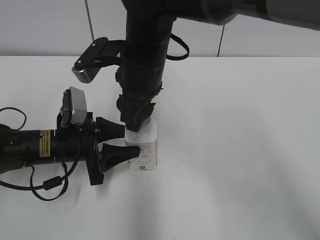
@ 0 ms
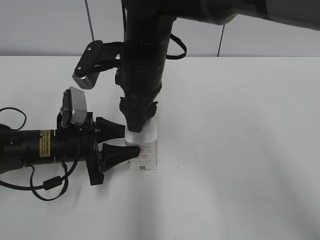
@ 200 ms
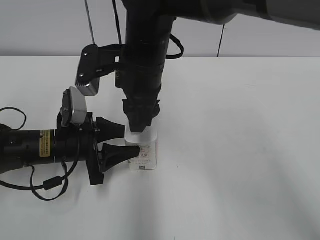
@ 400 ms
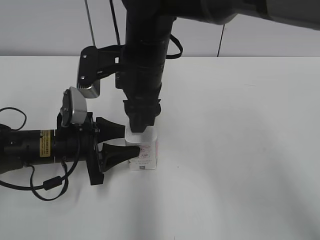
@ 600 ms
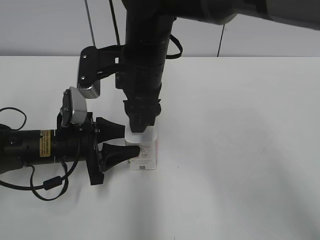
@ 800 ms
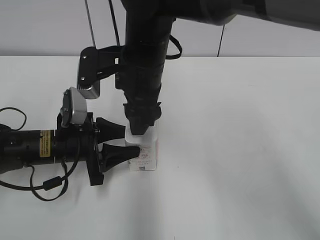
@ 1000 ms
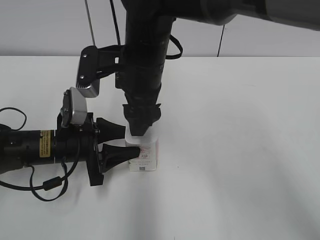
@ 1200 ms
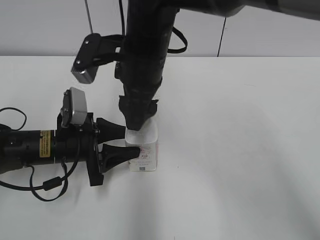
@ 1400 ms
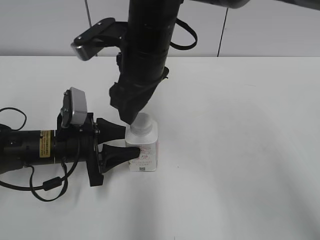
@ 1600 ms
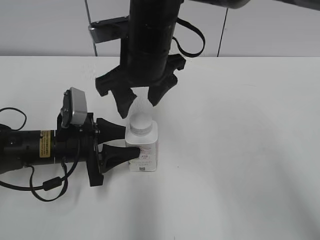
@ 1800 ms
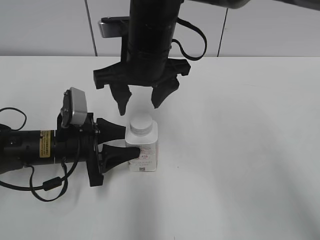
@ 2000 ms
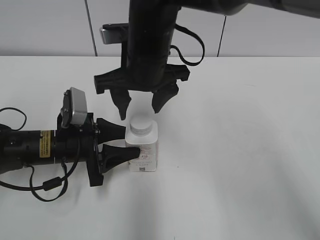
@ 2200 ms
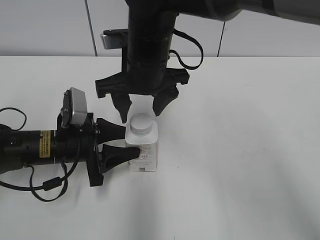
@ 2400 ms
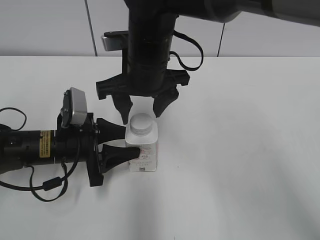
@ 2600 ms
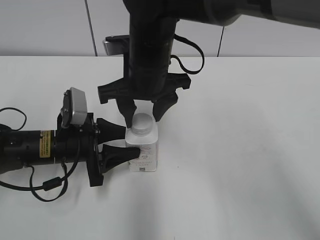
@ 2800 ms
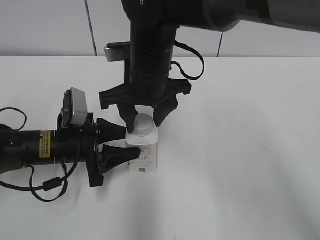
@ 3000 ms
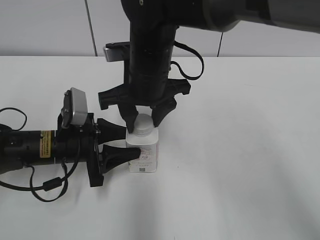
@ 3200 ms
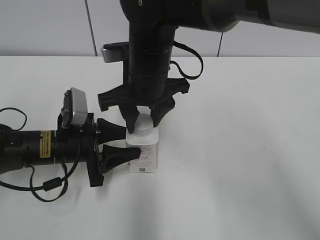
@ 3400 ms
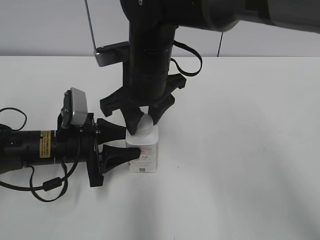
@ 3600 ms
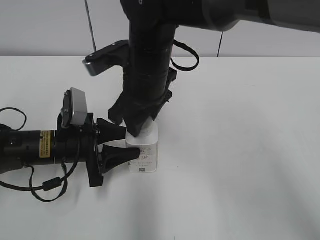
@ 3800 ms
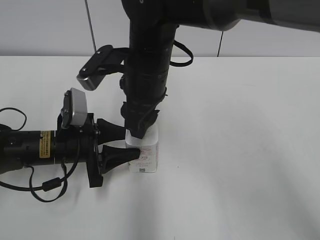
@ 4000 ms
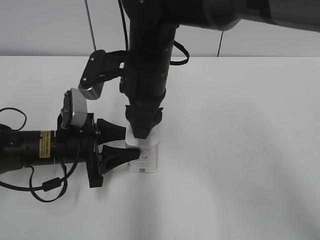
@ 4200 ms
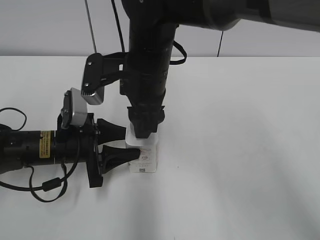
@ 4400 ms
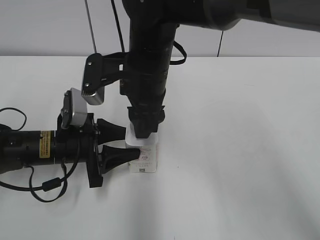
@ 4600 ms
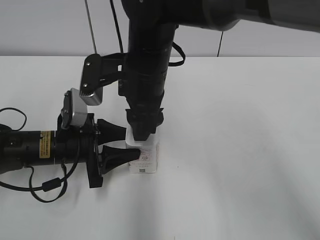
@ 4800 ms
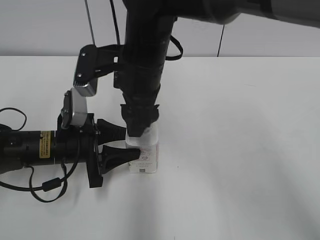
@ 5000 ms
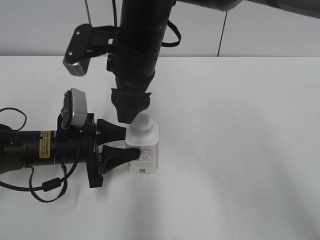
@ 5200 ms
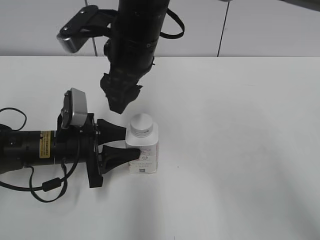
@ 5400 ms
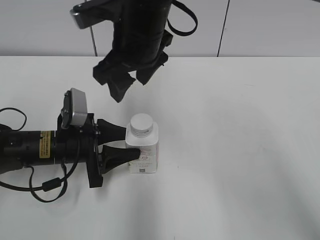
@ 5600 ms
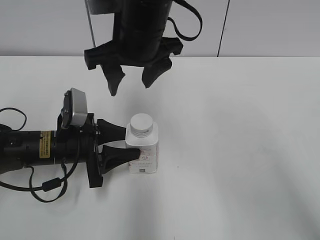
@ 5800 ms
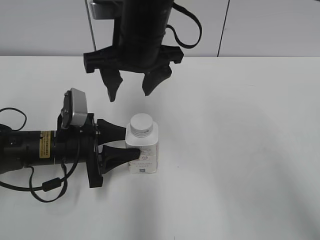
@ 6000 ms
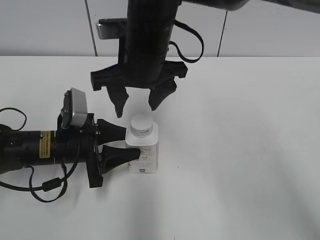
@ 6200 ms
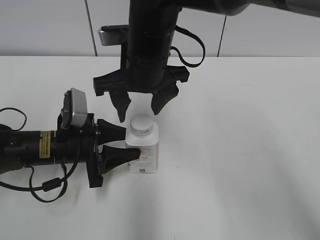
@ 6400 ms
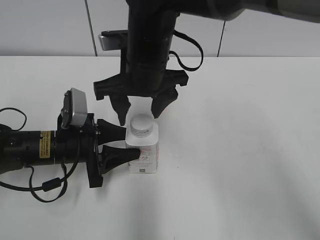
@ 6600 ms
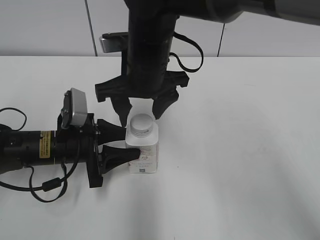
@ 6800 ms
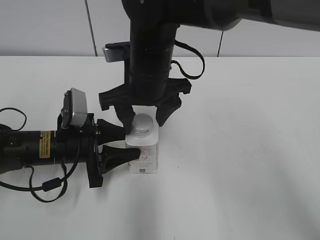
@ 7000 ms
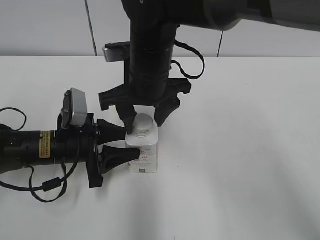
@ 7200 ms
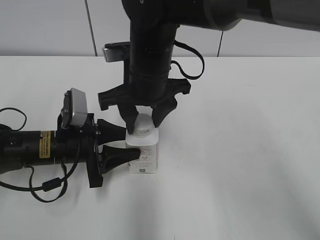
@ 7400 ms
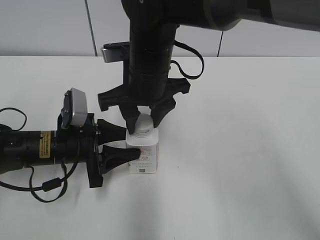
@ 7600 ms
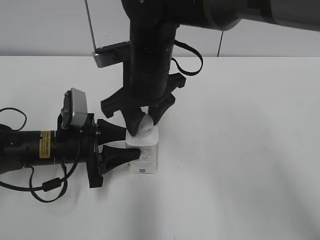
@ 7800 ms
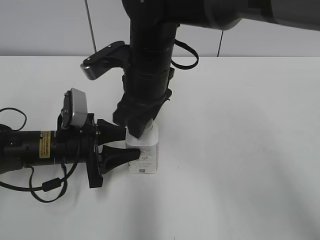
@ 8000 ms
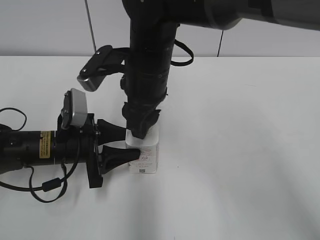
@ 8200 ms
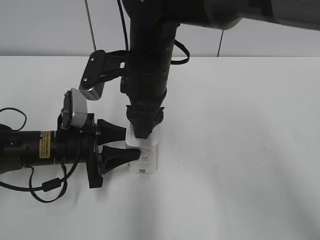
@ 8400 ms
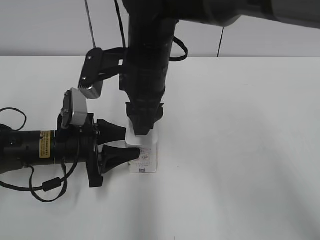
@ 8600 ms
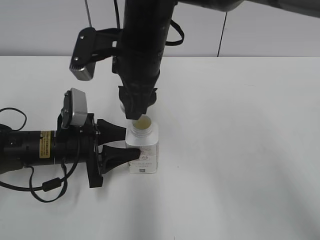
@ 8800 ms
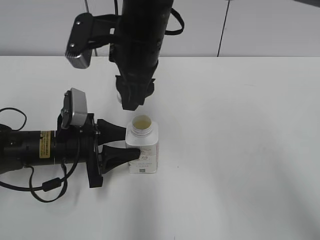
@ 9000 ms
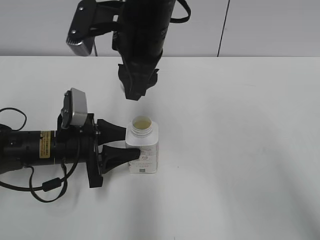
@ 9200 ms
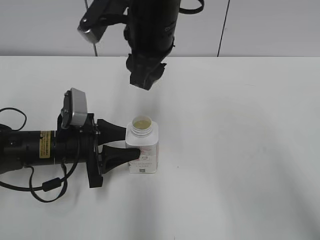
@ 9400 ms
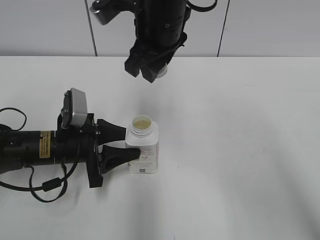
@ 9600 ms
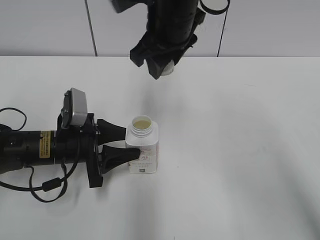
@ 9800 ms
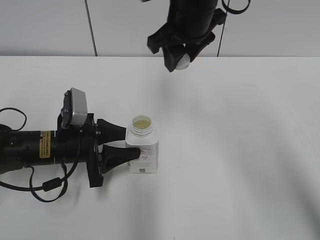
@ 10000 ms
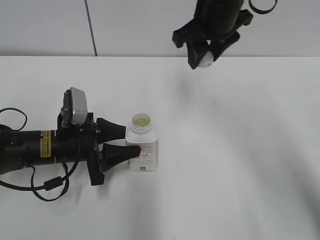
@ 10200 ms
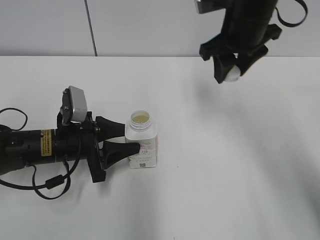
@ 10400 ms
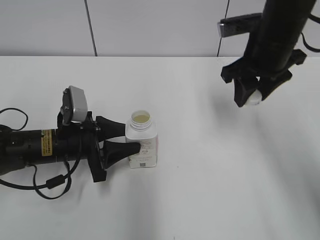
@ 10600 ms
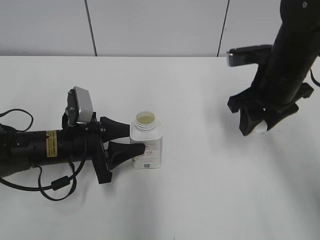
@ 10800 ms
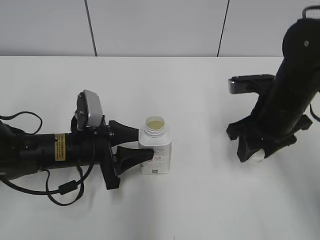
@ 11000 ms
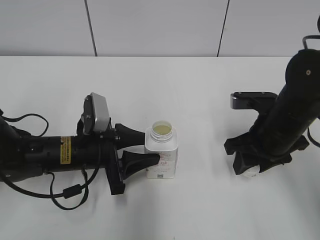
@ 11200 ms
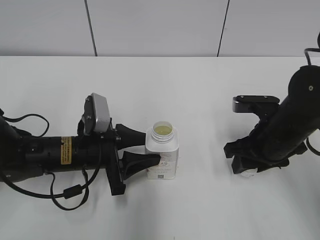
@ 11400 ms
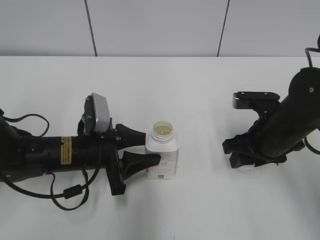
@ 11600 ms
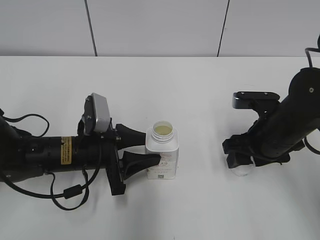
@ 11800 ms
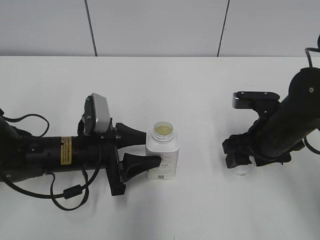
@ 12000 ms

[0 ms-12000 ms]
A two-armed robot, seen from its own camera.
Step, 0 ms to 8600 ms: Unscrew the bottle cap with the right gripper while holding the bottle with the left gripper.
Step, 9000 ms to 11600 ms: Place the bottle cap on the table with the right gripper.
0 ms to 1600 ms: The right gripper opens.
1600 ms to 3000 ms: The right gripper closes its fingers.
4400 ms to 6000 ms: The right gripper opens.
6000 ms to 7600 ms: The right gripper closes its fingers.
9000 ms to 10400 ms: The right gripper shifts about 15 cm to the right.
10400 ms to 12000 ms: The right gripper shifts about 20 cm downward, backward and to the right, and opens its fingers.

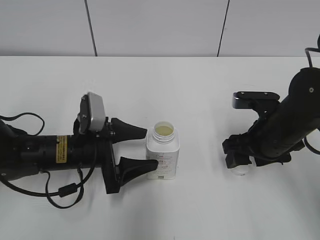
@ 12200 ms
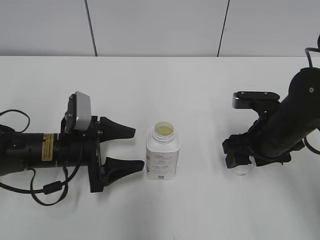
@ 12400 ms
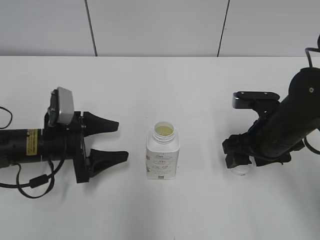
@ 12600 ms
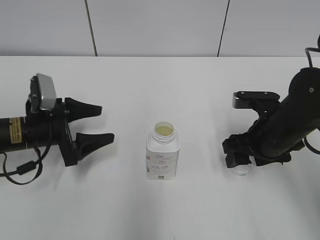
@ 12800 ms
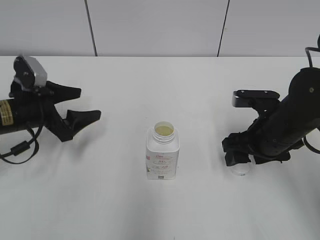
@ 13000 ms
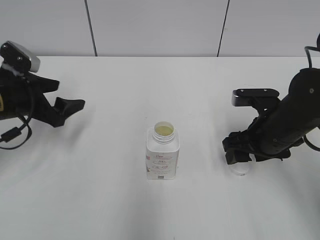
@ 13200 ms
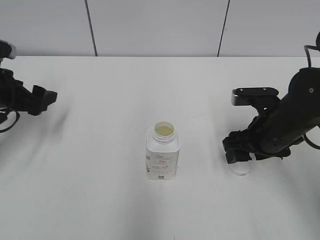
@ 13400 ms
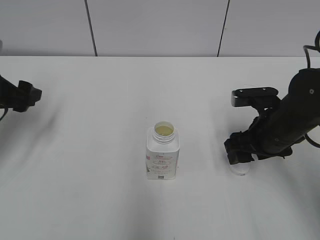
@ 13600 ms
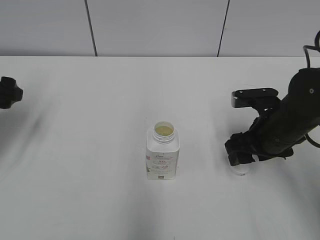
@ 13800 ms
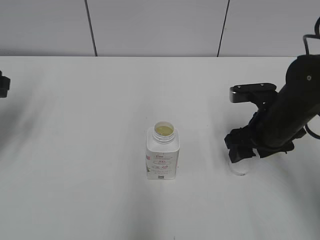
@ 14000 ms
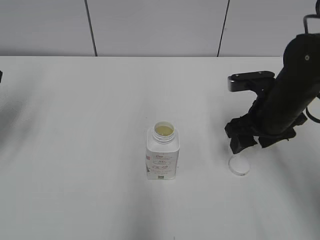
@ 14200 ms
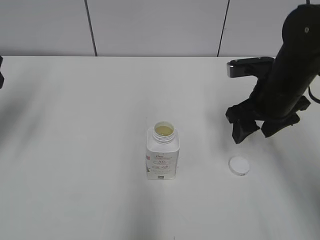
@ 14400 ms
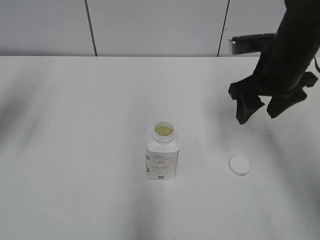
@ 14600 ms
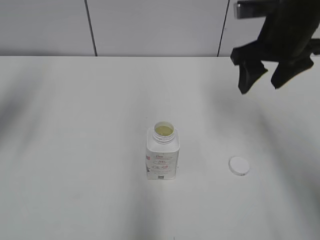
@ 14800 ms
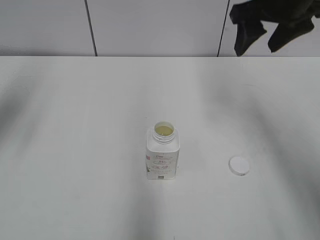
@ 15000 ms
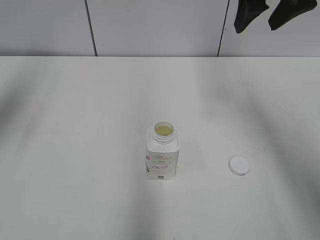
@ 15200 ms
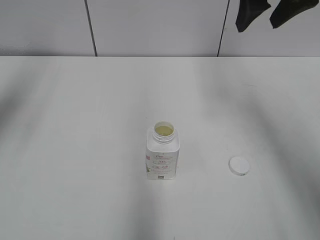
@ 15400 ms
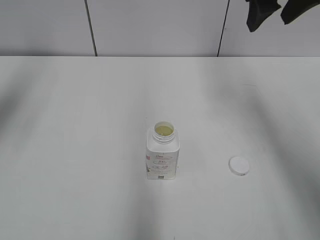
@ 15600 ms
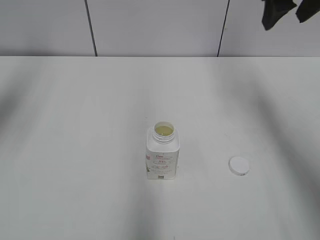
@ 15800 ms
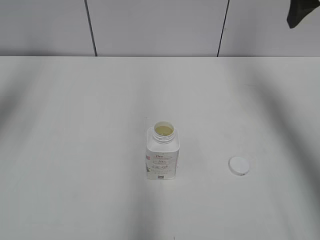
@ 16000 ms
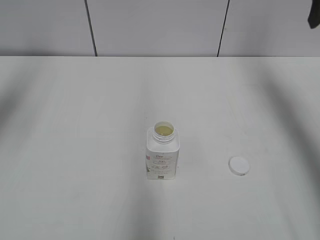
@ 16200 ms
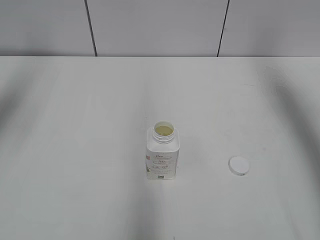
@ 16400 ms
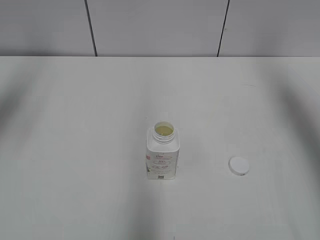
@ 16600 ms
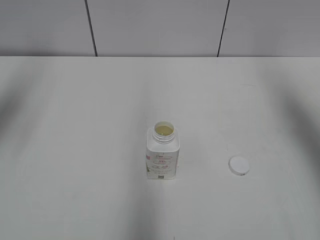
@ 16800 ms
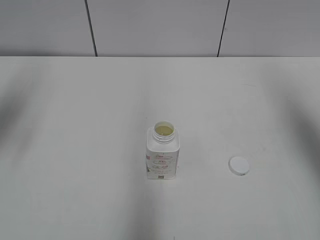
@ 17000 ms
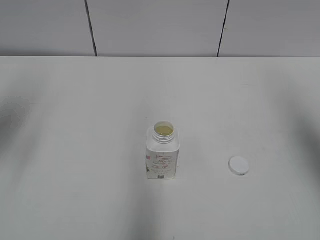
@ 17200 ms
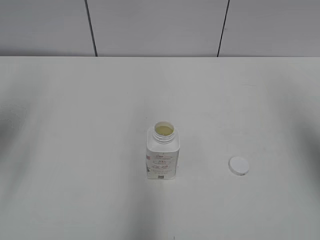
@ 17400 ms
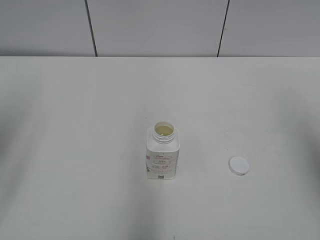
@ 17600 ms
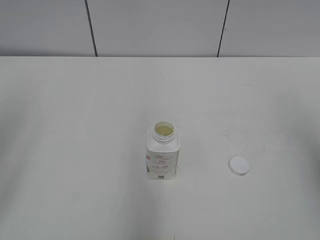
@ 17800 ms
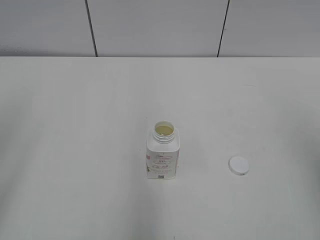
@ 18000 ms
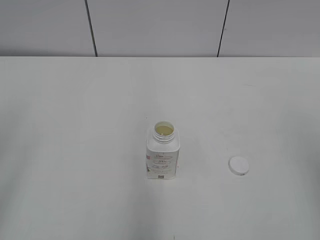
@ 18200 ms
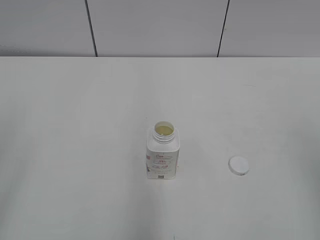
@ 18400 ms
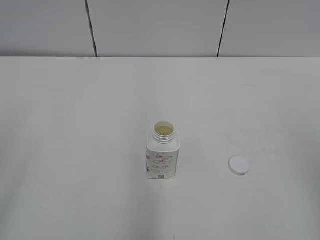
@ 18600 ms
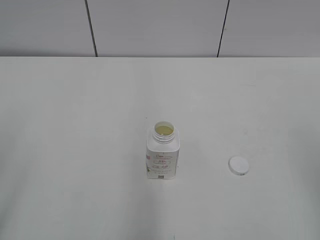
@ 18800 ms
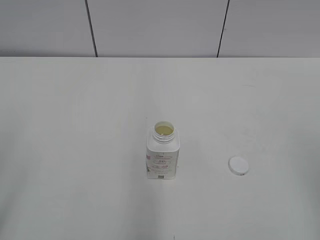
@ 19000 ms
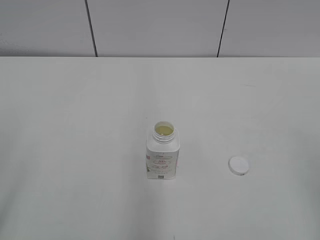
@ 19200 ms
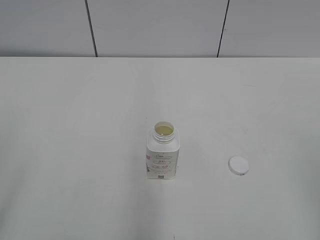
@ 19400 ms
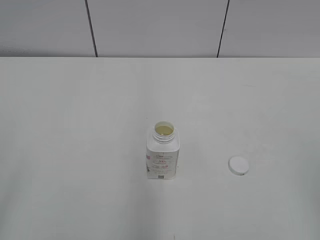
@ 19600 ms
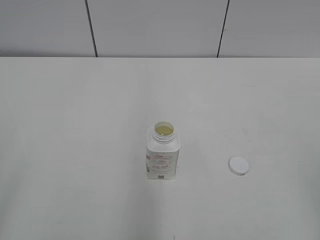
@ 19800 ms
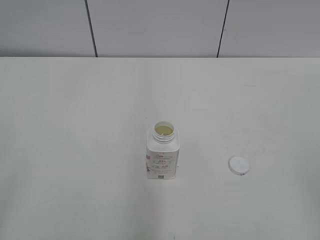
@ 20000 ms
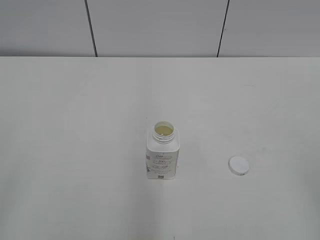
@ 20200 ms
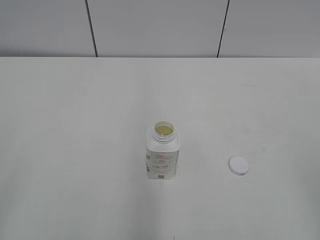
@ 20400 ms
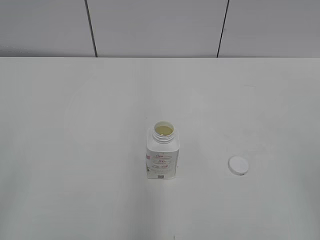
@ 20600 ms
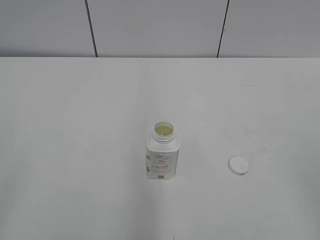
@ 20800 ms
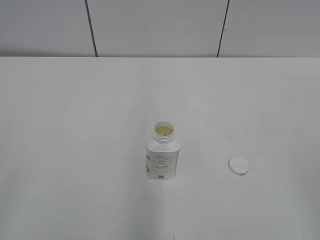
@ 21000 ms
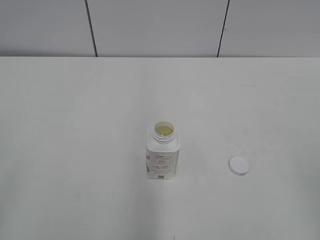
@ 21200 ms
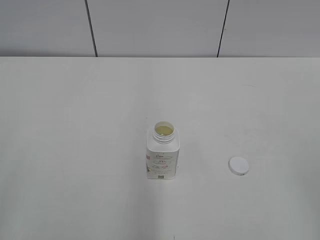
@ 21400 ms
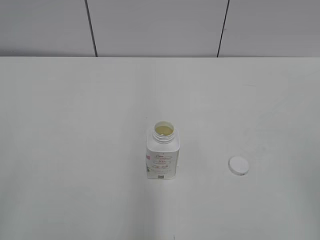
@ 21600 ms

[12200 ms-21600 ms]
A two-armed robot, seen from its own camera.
12200 ms to 13800 ms: The left gripper heads to the left and upward, covering roughly 20 cm.
13800 ms to 15400 ms: Both grippers move upward, approximately 20 cm.
15400 ms to 17000 ms: The right gripper travels to the right and backward by some 15 cm.
17000 ms to 18400 ms: The grippers both shift backward by approximately 20 cm.

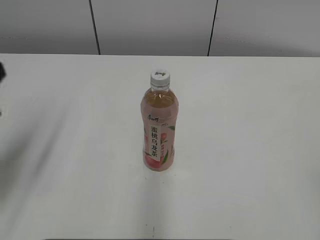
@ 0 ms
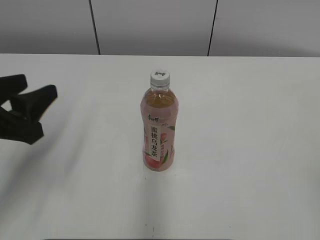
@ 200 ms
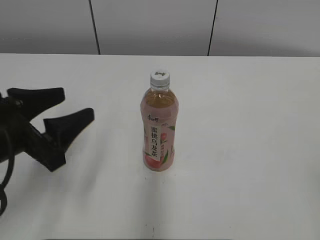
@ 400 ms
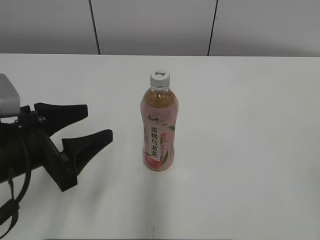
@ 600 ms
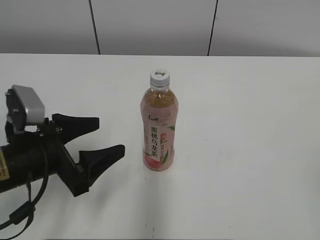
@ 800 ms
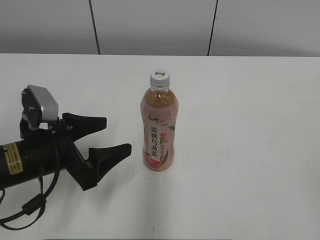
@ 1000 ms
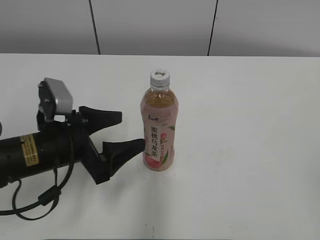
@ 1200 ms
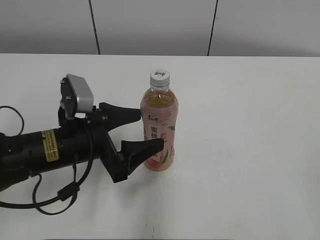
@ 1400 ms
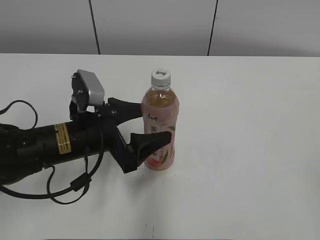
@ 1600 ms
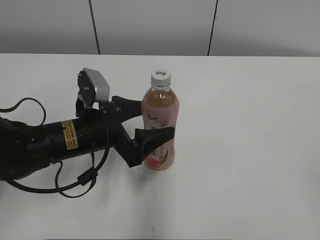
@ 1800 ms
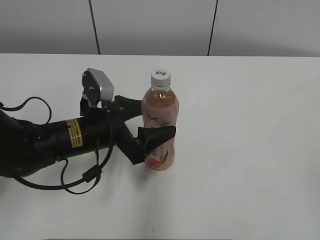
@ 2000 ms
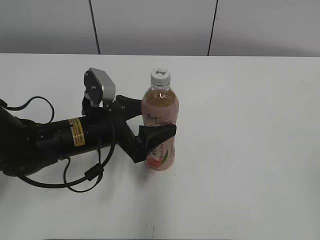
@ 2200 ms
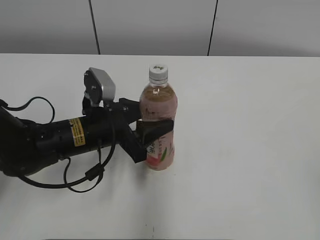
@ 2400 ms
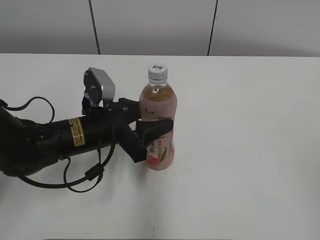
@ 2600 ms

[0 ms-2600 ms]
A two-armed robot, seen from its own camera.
Step, 0 ms to 2200 ms: Grasp the bottle and move it to the center of the table with the left gripper.
0 ms to 1200 ms: The left gripper shifts approximately 15 cm downward, to the right and forward, and opens.
1200 ms to 2600 ms: The left gripper is displaced to the right by about 5 cm, and closes.